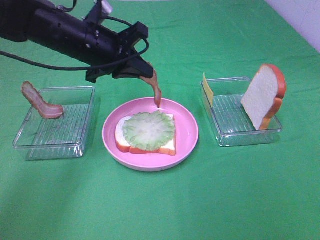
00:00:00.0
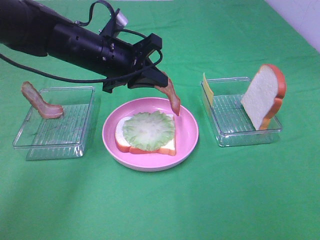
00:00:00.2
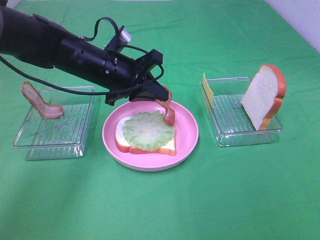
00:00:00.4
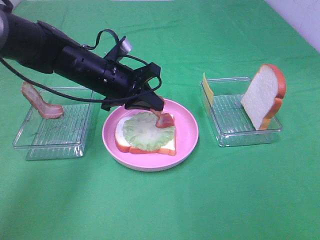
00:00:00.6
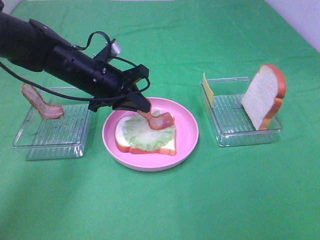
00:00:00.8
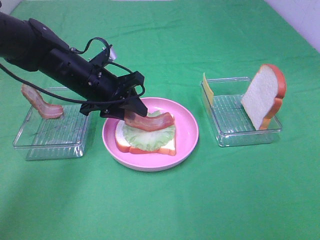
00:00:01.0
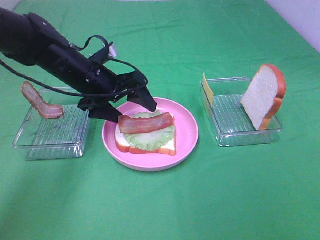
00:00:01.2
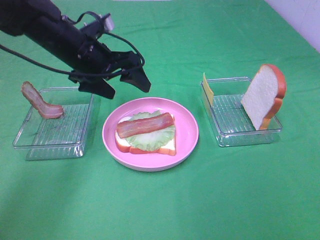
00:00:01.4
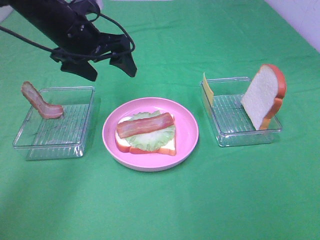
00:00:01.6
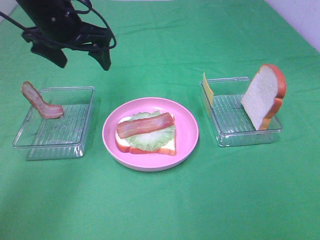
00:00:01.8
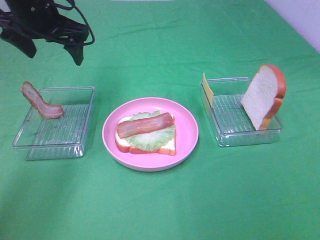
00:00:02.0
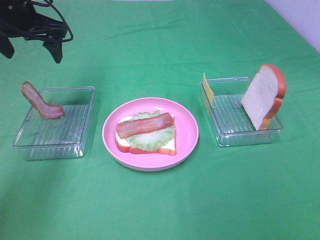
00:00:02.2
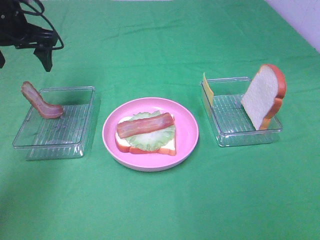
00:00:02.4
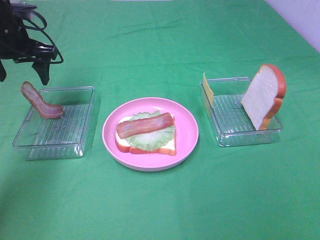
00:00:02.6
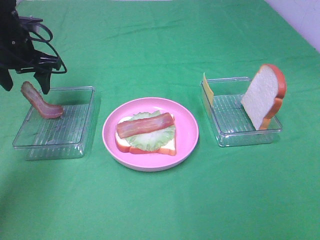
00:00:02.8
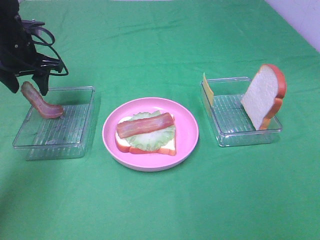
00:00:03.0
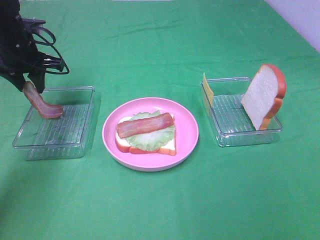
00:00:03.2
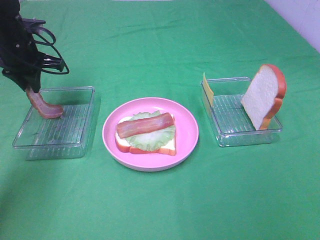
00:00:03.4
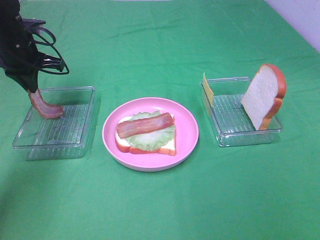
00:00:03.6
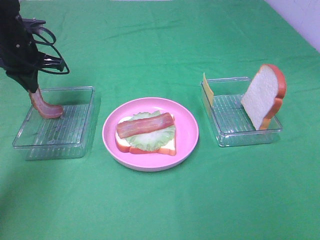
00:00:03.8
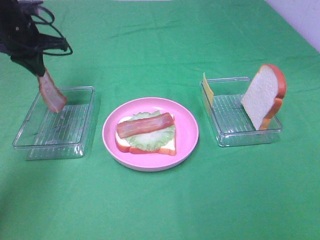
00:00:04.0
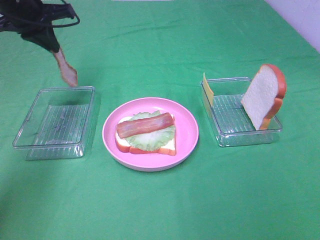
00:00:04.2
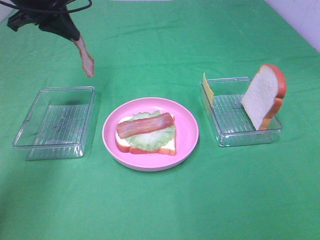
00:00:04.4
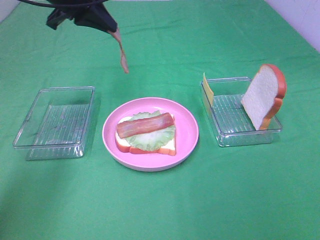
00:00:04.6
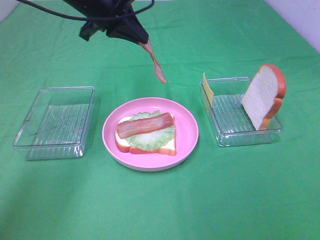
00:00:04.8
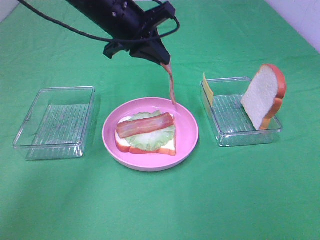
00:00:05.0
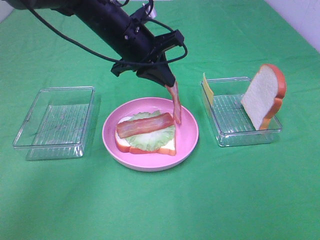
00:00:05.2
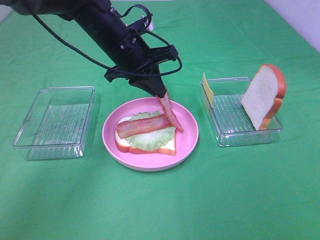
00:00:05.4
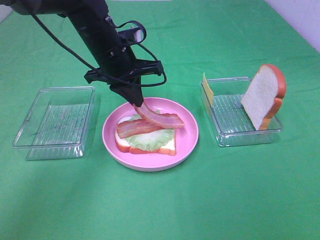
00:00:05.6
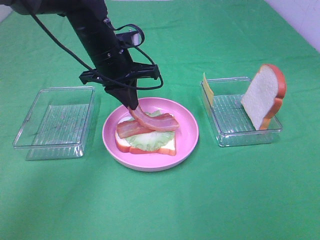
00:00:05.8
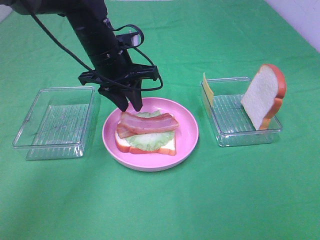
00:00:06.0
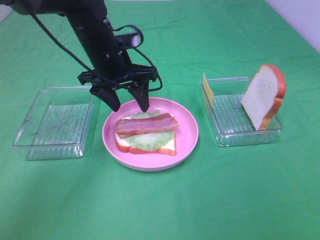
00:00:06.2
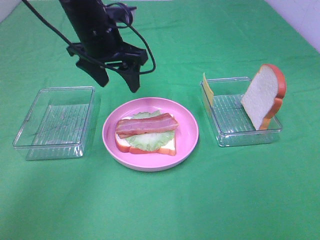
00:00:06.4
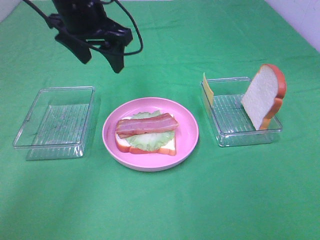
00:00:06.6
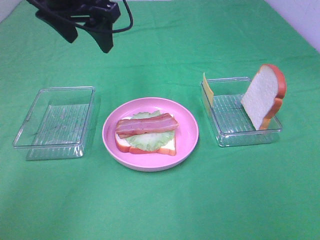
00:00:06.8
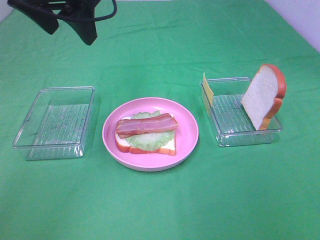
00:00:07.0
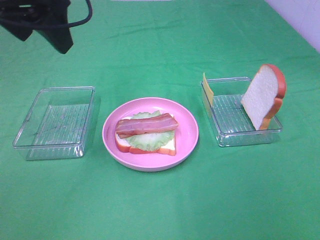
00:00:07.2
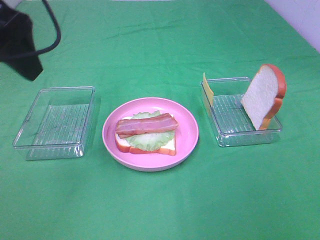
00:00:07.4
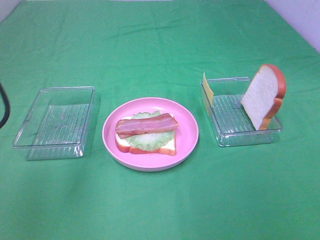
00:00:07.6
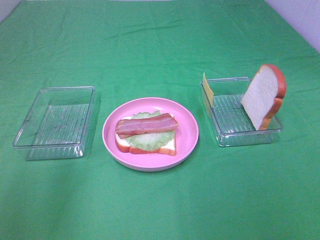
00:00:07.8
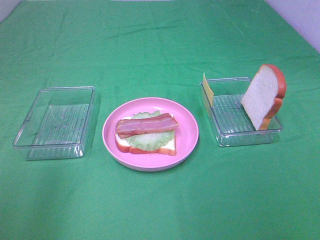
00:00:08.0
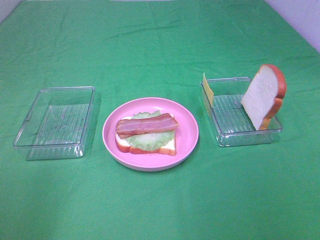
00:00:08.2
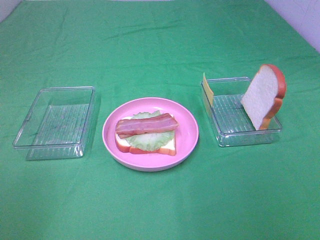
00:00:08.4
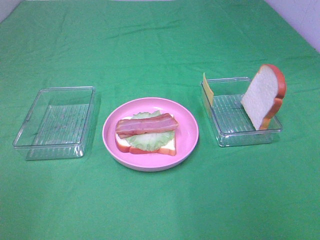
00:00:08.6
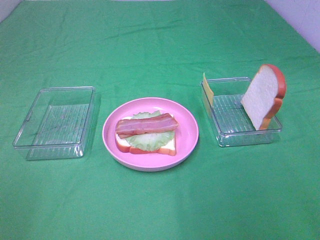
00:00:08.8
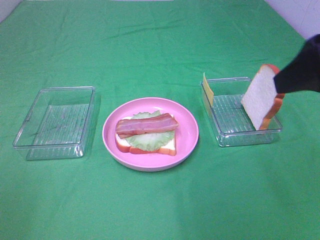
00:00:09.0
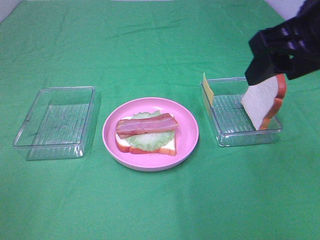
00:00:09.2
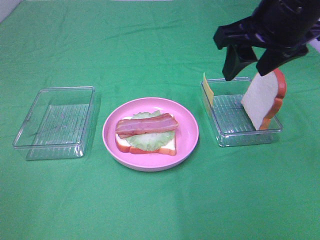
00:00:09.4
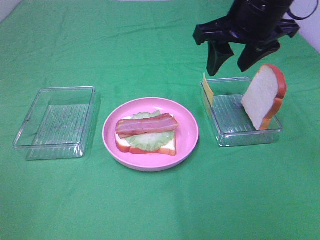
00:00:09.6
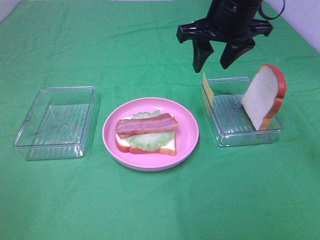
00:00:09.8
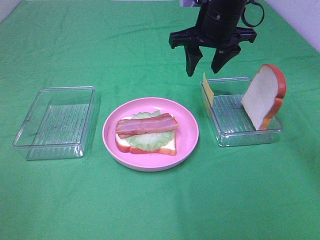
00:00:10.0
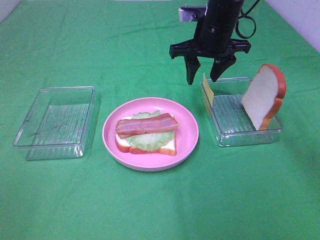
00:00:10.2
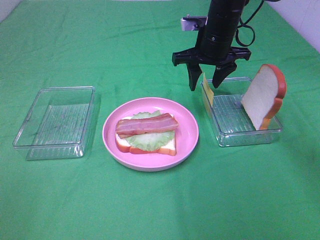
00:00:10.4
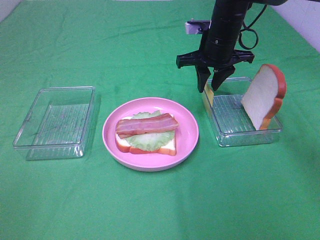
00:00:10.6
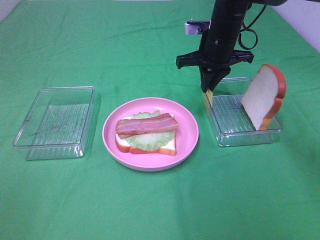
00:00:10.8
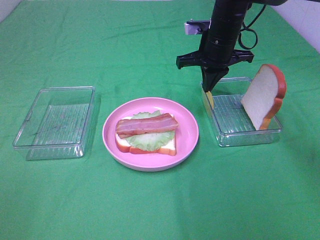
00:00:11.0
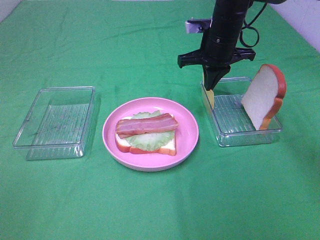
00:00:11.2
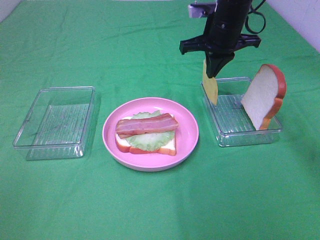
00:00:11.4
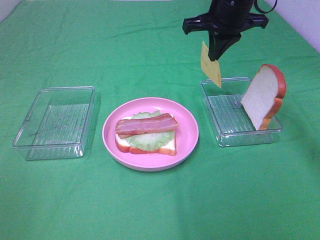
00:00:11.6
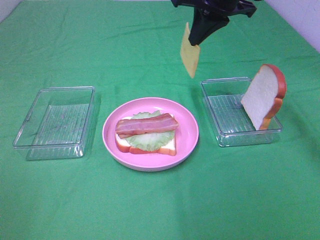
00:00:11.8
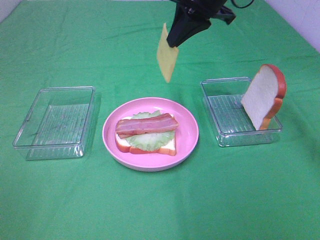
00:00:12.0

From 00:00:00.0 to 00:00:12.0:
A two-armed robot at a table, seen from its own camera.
Task of the whole recording: Make sandwiches.
Step, from 00:00:00.0 to 00:00:01.4: Left hand:place bacon on lettuce slice.
Step, from 00:00:01.6 to 00:00:03.8: Left hand:grab the bacon.
Step, from 00:00:04.0 to 00:00:06.2: Left hand:place bacon on bacon.
Step, from 00:00:06.4 to 00:00:11.2: Right hand:grab the cheese slice.
From 00:00:00.0 to 00:00:01.6: The left gripper reaches approximately 5 cm downward, then returns, and opens its fingers.
From 00:00:01.6 to 00:00:03.0: The left gripper heads to the left, covering approximately 10 cm.
From 00:00:03.0 to 00:00:04.4: The left gripper shifts roughly 10 cm upward, and closes up.
From 00:00:04.4 to 00:00:06.0: The left gripper goes about 15 cm to the right and downward, and opens its fingers.
From 00:00:06.0 to 00:00:07.6: The left gripper goes approximately 30 cm backward, to the left and upward, and opens up.
From 00:00:07.6 to 00:00:09.0: The left gripper is displaced backward and to the left by roughly 20 cm. Meanwhile the right gripper heads forward and to the left, covering about 20 cm.
From 00:00:09.0 to 00:00:10.4: The right gripper goes about 30 cm forward and downward.
From 00:00:10.4 to 00:00:12.0: The right gripper goes roughly 10 cm upward, and closes its fingers.

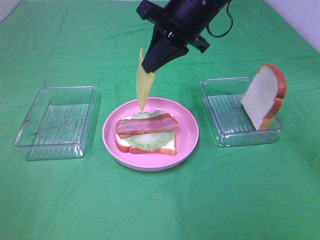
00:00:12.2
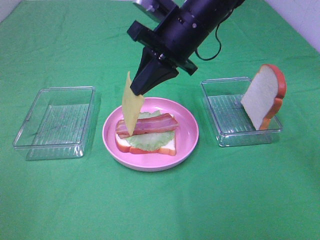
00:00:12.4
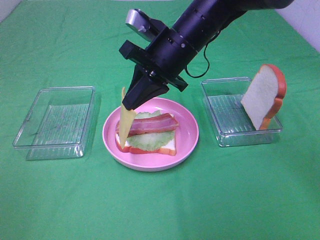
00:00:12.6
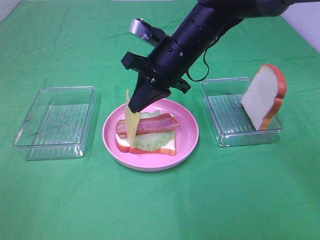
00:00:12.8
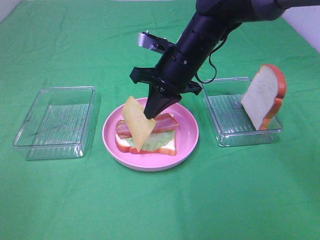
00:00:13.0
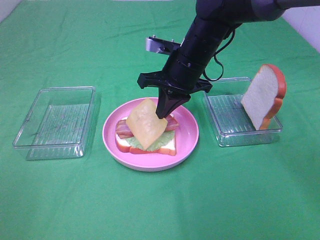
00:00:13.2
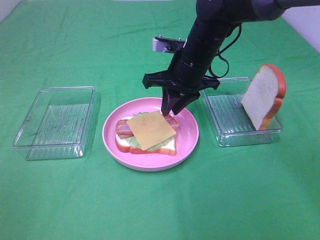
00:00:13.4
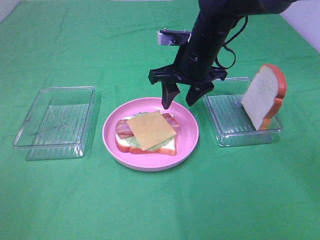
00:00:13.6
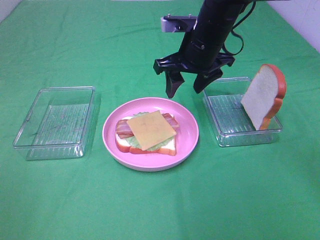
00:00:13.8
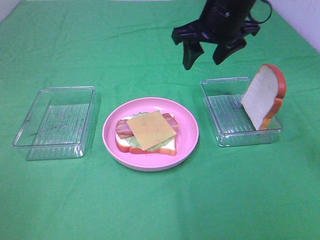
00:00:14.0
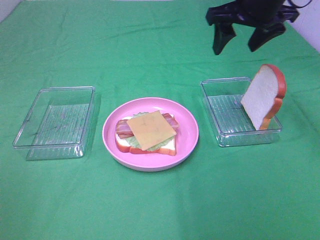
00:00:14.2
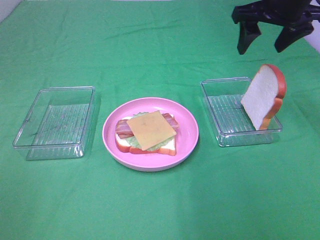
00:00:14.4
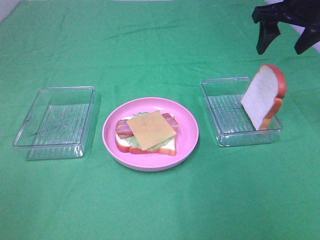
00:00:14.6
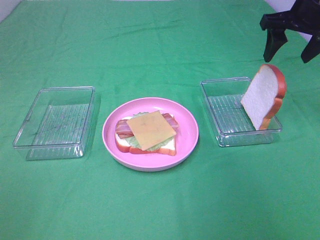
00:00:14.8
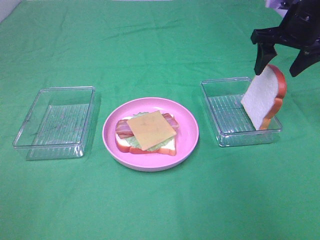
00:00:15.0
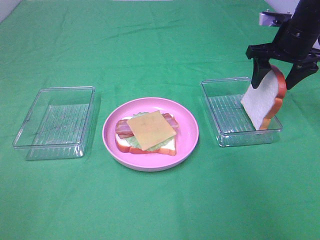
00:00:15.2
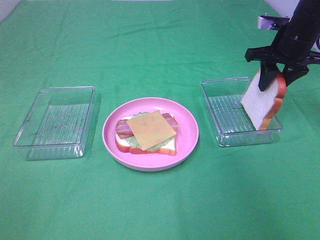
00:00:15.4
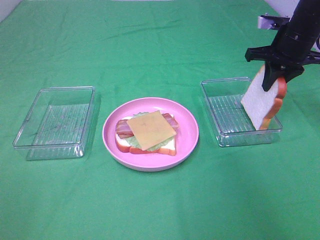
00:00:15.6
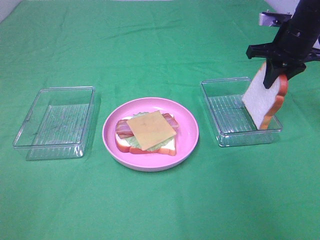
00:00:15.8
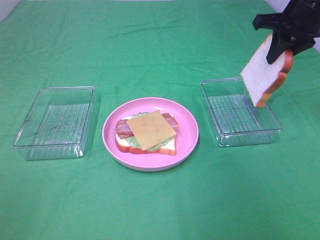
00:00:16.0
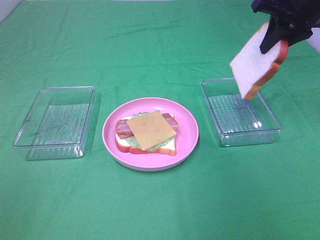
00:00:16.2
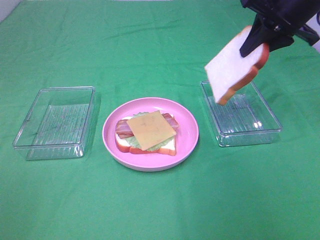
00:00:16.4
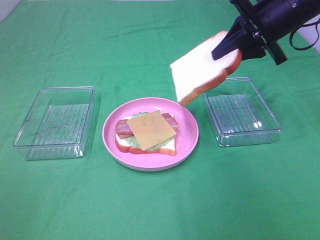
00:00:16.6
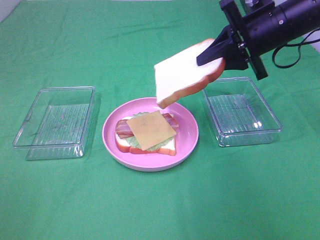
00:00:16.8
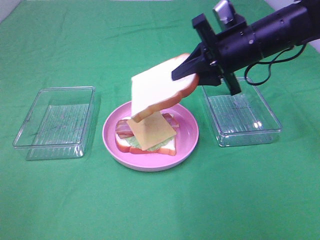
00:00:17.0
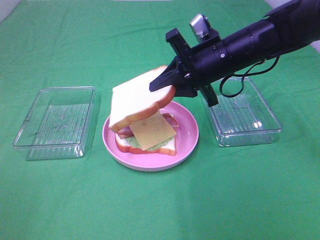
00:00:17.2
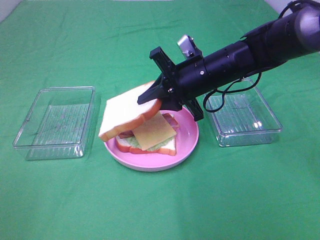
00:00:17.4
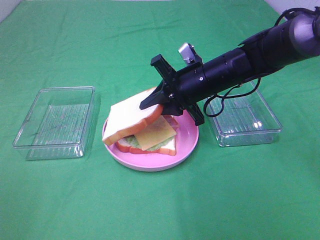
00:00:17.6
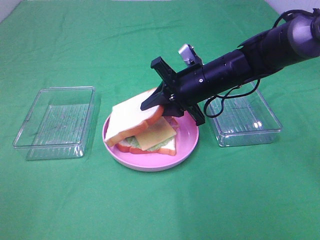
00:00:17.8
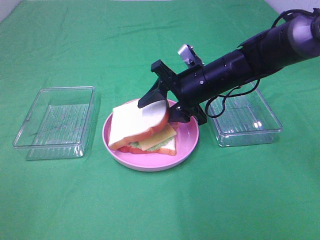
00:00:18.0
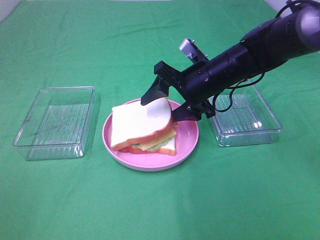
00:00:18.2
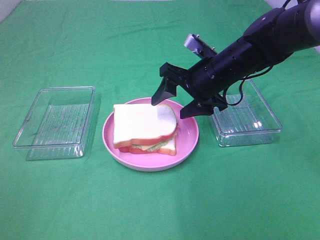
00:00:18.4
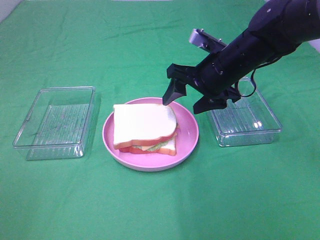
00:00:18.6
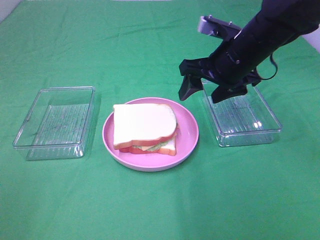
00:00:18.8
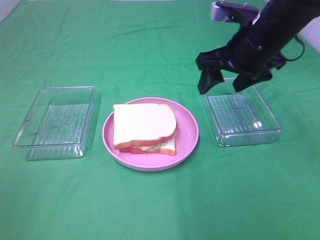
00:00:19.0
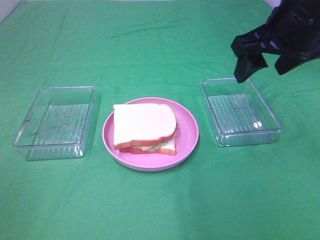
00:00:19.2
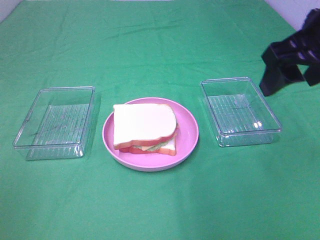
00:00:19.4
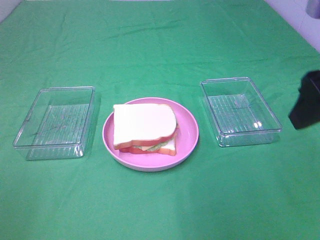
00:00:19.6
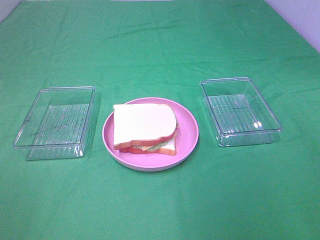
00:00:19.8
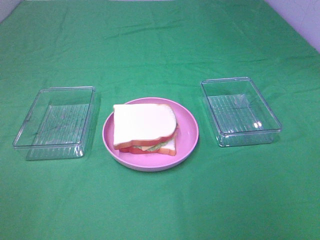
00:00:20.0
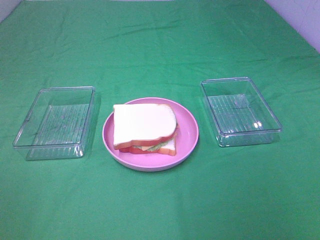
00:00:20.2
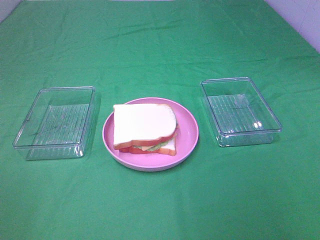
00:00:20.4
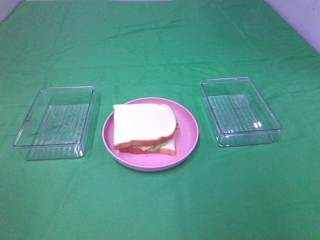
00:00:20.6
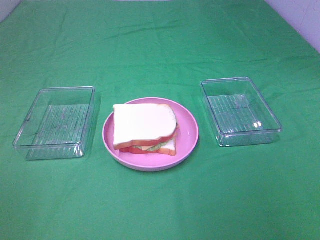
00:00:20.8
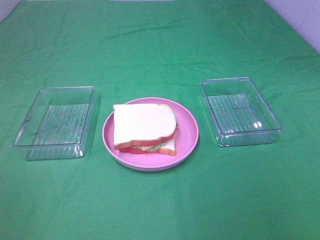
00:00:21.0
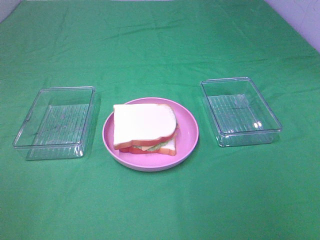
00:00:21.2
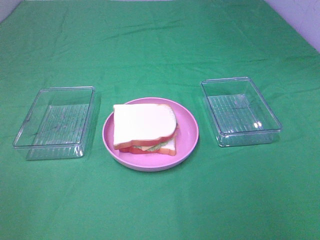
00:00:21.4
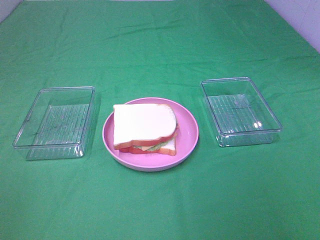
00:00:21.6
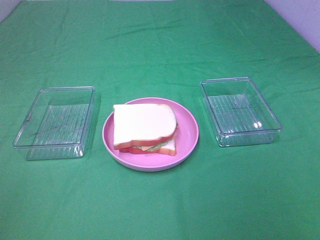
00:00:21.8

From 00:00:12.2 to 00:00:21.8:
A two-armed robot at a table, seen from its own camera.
Task of the whole recording: Make sandwiches.
Step, from 00:00:12.2 to 00:00:13.4: Right hand:place the bread slice on the cheese slice.
Step, from 00:00:13.6 to 00:00:15.6: Right hand:grab the bread slice.
Step, from 00:00:15.8 to 00:00:18.4: Right hand:place the bread slice on the cheese slice.
From 00:00:12.2 to 00:00:13.8: The right gripper shifts about 5 cm downward, and opens its fingers.
From 00:00:13.8 to 00:00:15.4: The right gripper travels to the right by about 20 cm.
From 00:00:15.4 to 00:00:17.0: The right gripper heads to the left and backward, covering some 15 cm.
From 00:00:17.0 to 00:00:18.6: The right gripper opens.
From 00:00:18.6 to 00:00:20.2: The right gripper is displaced backward and to the right by roughly 35 cm.
